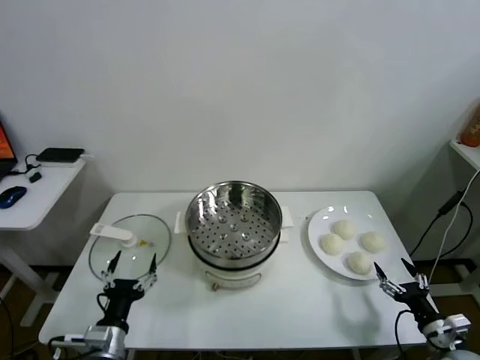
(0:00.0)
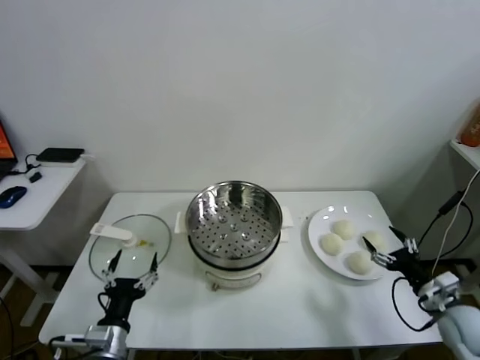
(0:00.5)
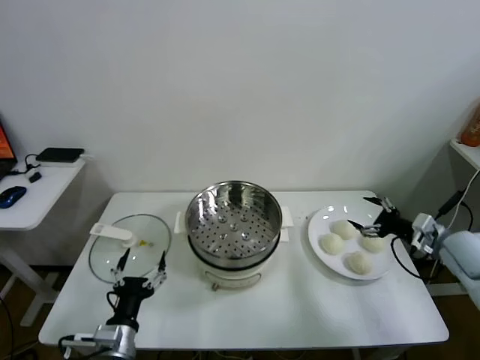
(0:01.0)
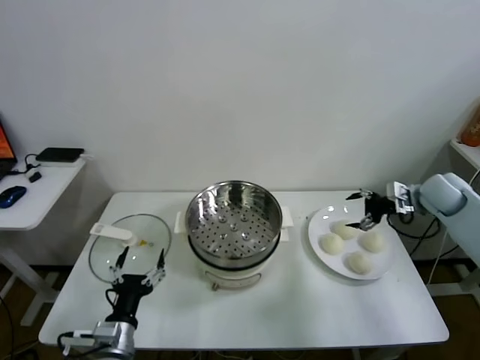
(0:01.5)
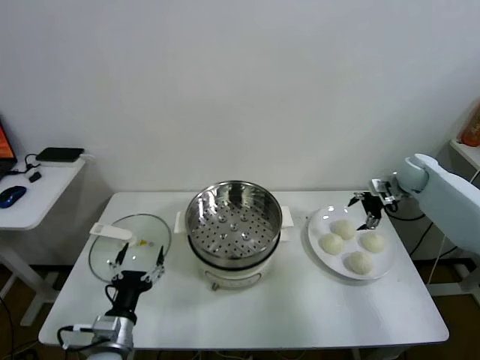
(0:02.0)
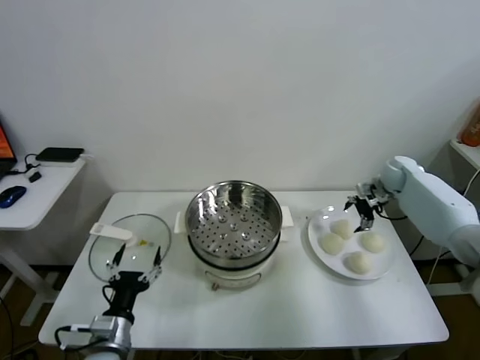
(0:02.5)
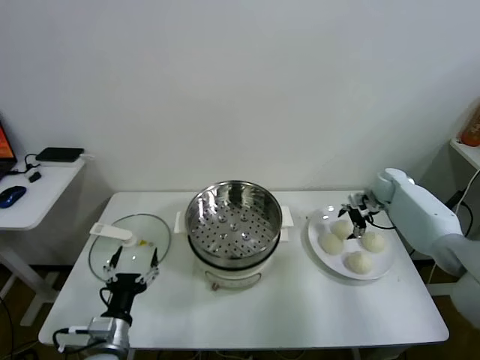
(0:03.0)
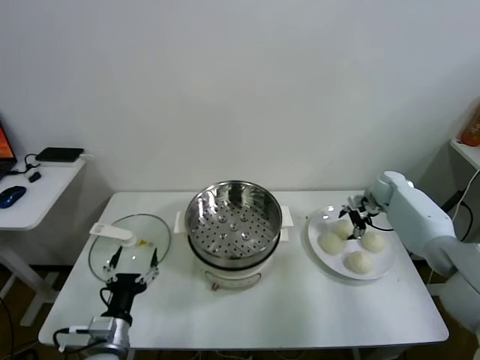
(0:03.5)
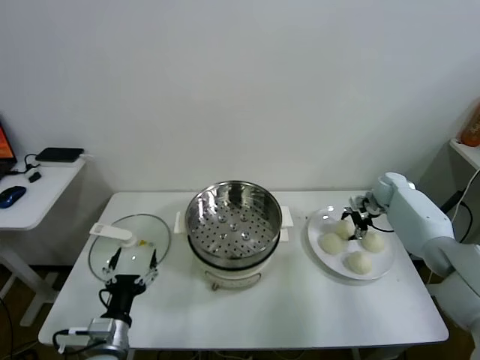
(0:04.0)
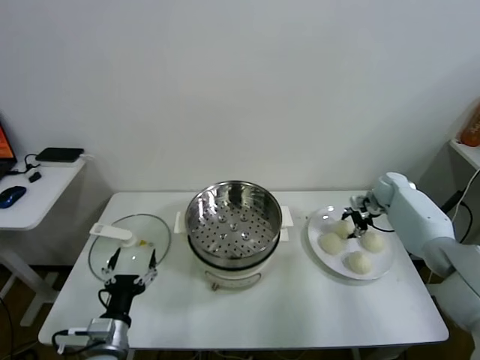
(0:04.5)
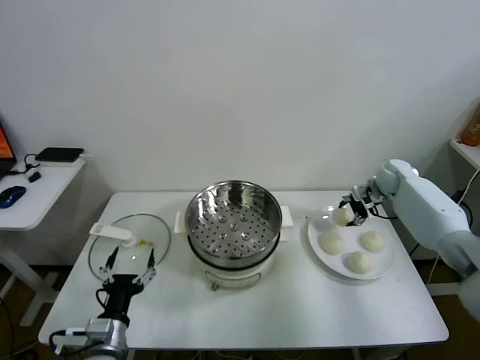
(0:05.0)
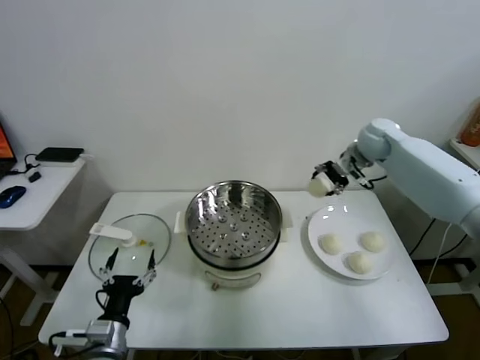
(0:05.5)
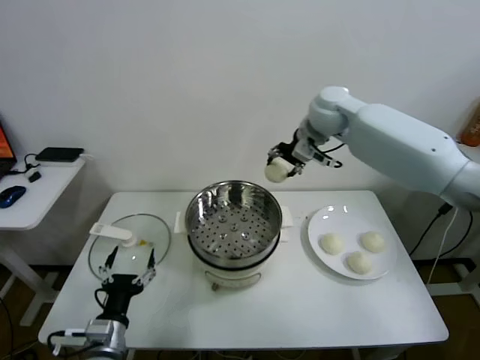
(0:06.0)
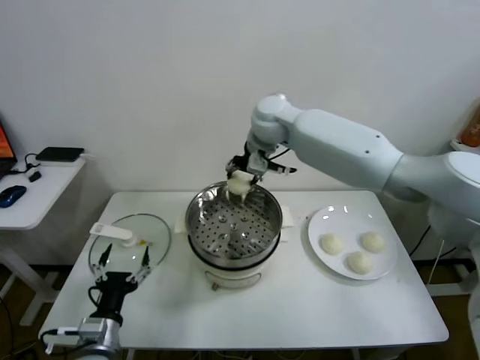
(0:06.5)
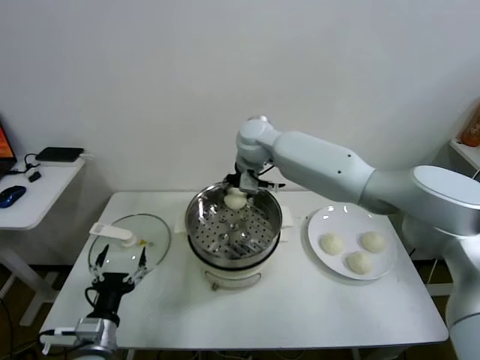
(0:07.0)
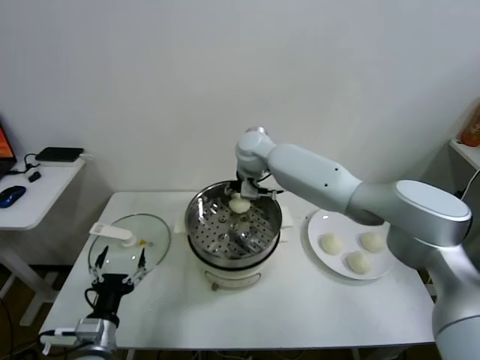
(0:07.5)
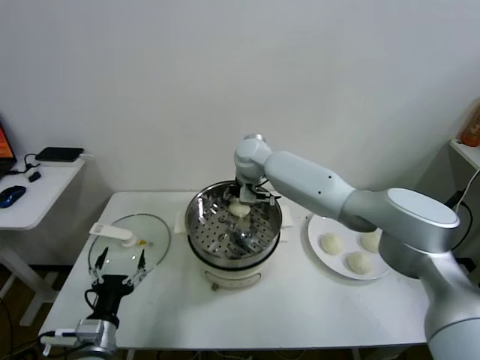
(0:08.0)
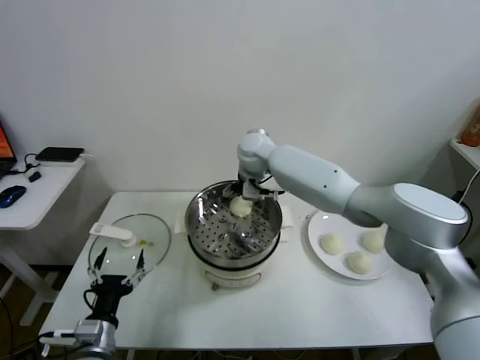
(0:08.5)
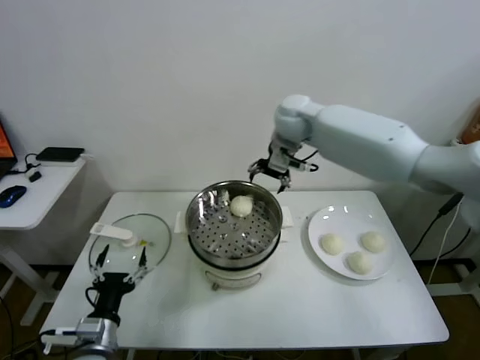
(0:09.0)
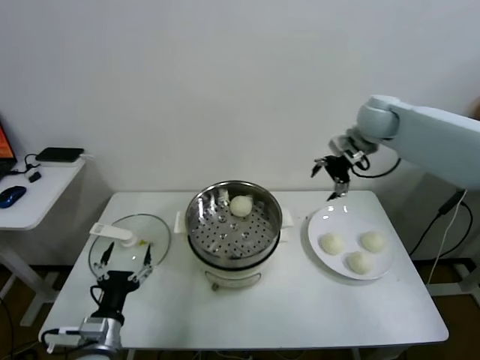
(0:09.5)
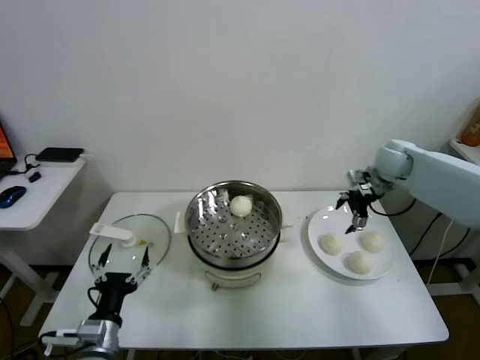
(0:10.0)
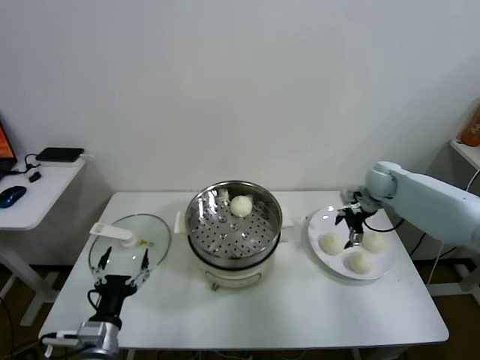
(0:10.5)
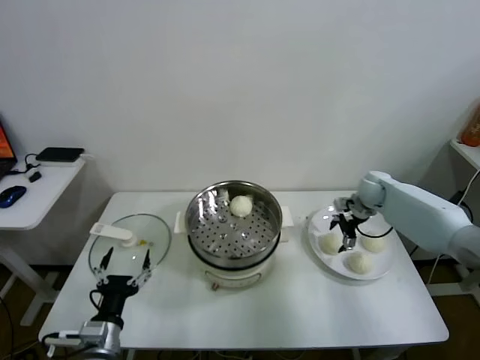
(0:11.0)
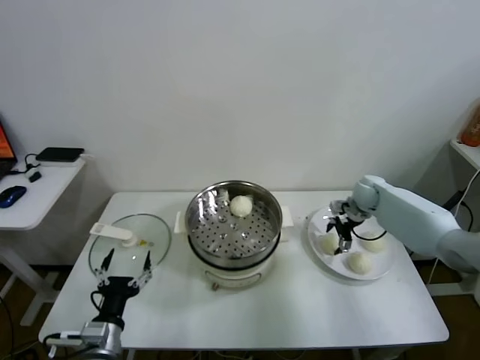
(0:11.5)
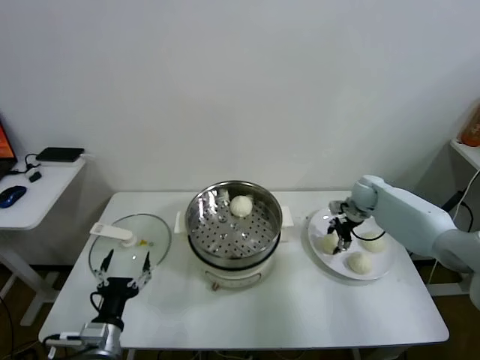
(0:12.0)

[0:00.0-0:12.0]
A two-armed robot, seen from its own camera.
Task of the whole recording: take steamed baozi put them in steamer.
Step, 0:00.0 to 0:04.5: Grasp the baozi in the plate with right gripper.
Step, 0:05.0 to 0:08.0: Place the baozi on the steamer with right gripper.
0:02.0 to 0:04.0: The right gripper is displaced downward by some 10 cm, and closes up.
0:04.0 to 0:06.0: The right gripper heads to the left and upward, covering approximately 40 cm, and closes its fingers.
0:06.0 to 0:08.0: The right gripper goes some 20 cm downward and to the left, and opens.
0:08.0 to 0:10.0: The right gripper shifts some 35 cm to the right.
0:10.0 to 0:12.0: The right gripper shifts some 10 cm downward, and closes up.

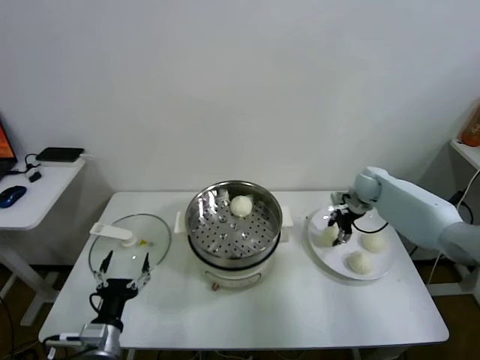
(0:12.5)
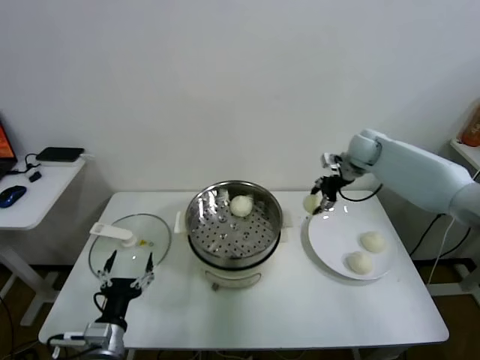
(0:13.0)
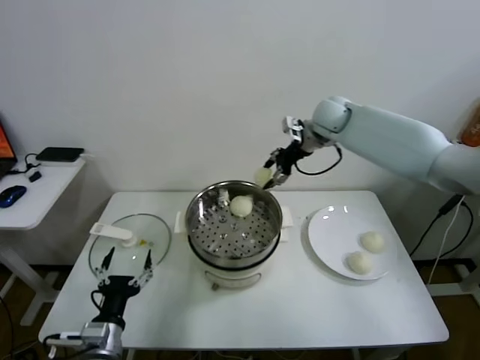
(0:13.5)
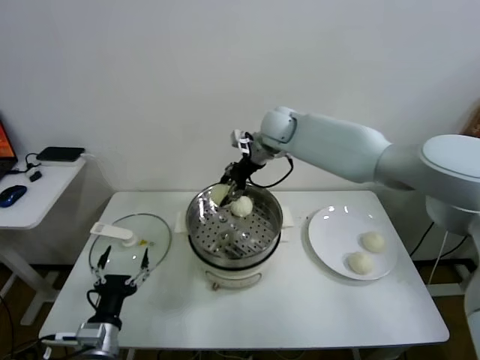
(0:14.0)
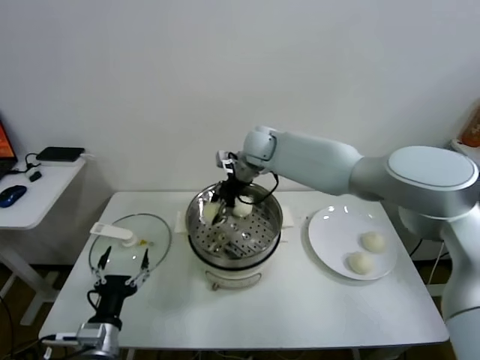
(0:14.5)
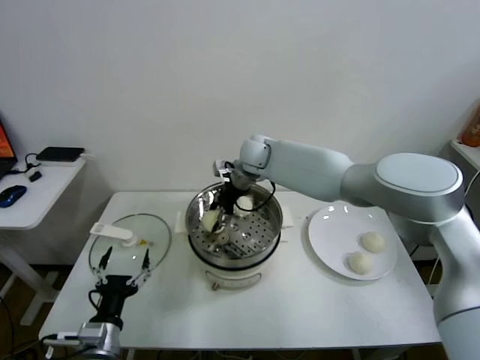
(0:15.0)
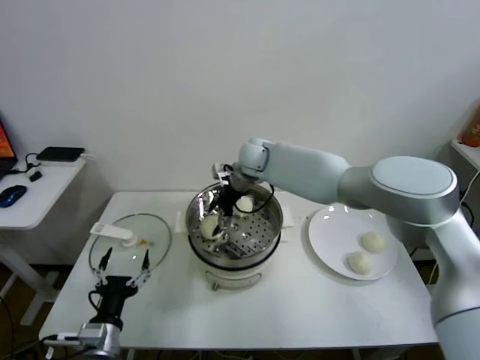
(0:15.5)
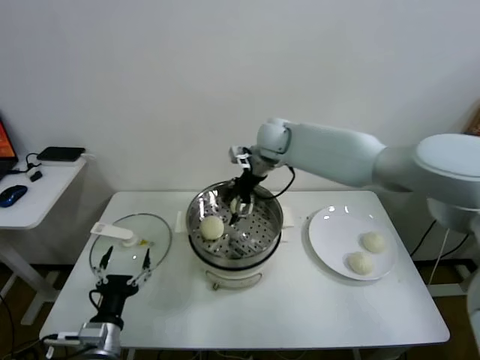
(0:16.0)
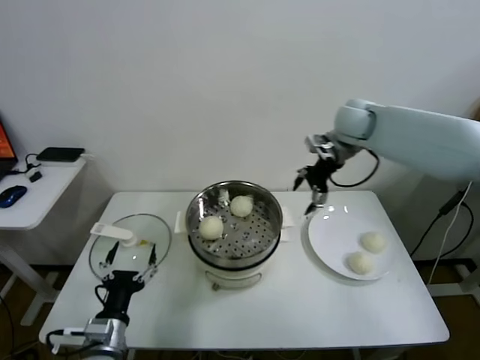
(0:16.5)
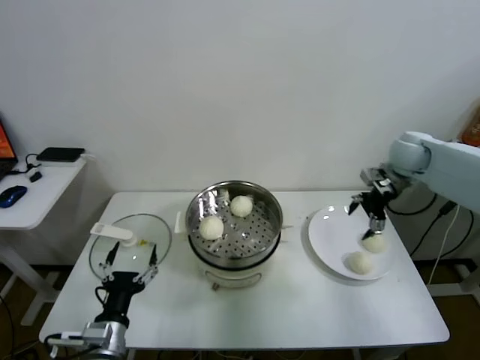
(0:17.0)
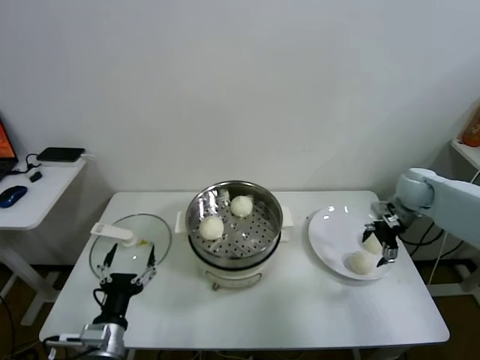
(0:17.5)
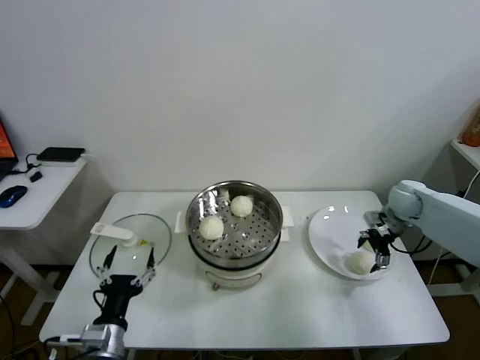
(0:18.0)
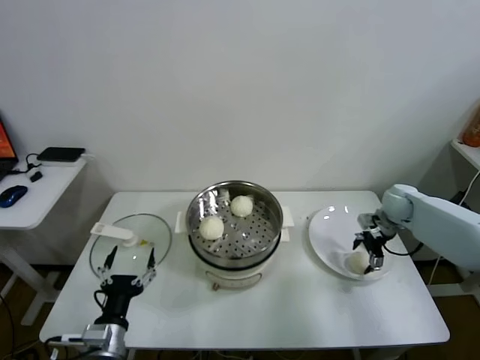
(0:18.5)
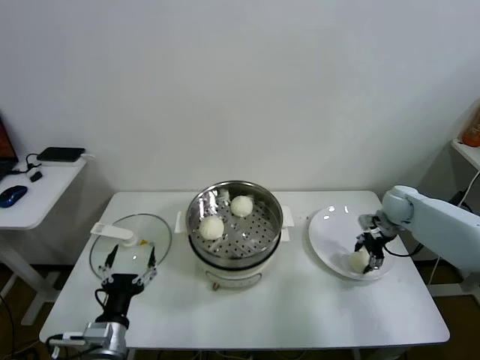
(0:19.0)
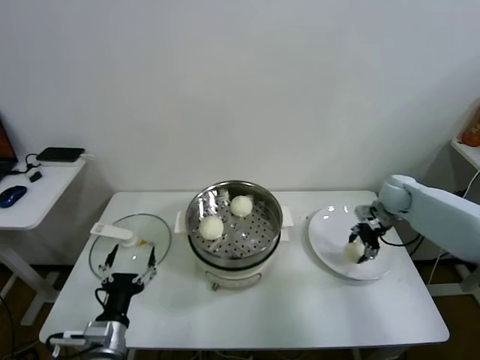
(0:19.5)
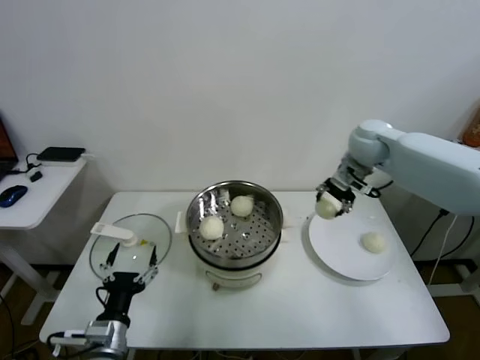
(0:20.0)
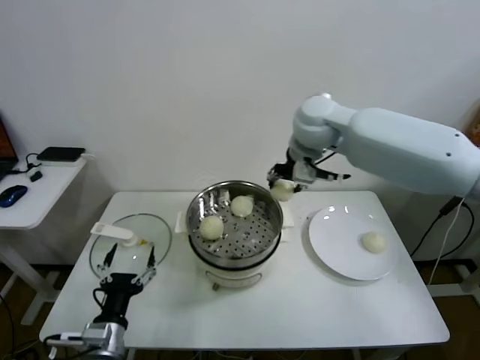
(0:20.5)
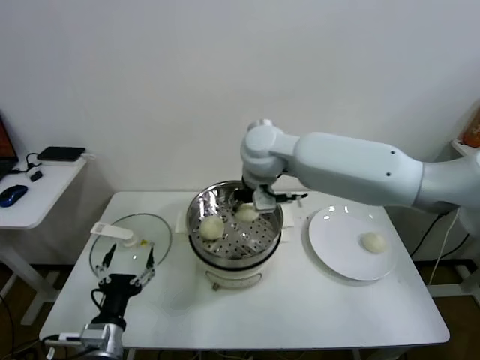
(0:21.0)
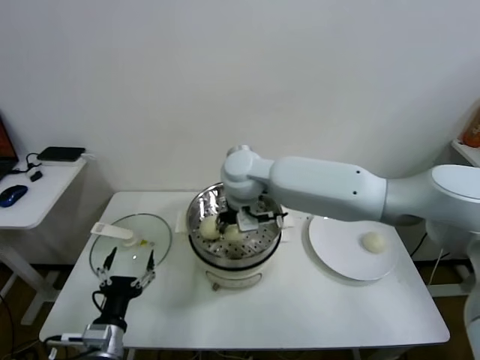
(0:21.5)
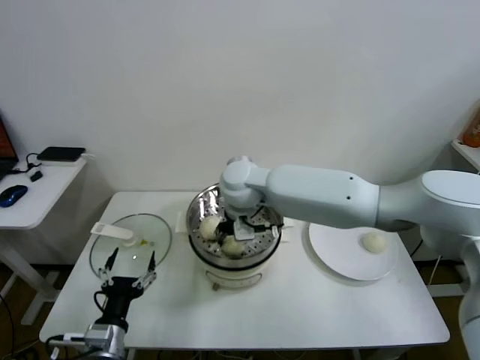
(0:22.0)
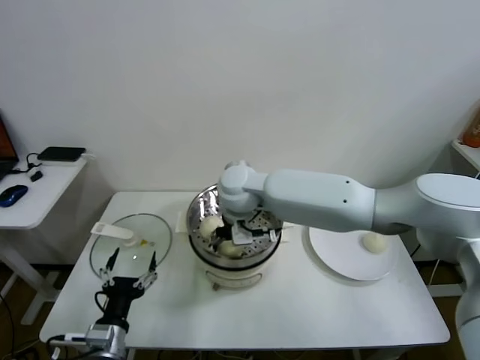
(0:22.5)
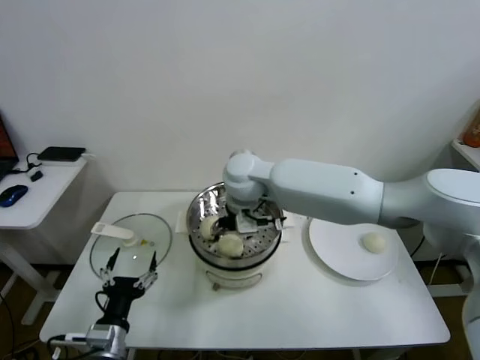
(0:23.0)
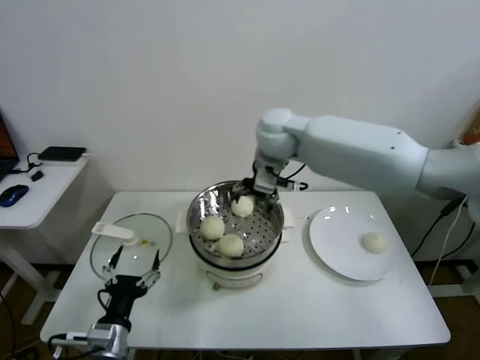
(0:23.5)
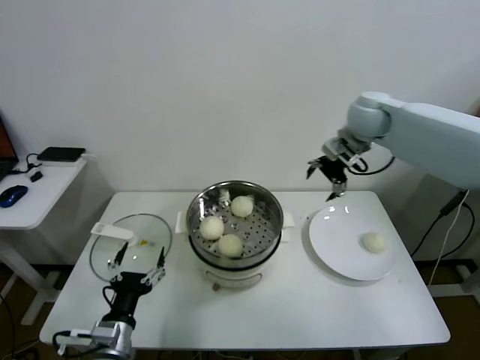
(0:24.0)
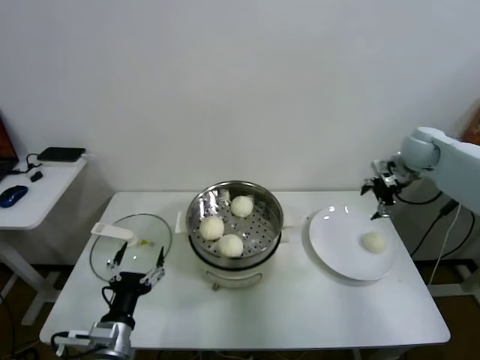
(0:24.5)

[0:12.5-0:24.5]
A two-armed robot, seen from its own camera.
Task of the whole recording: take steamed baozi put them in steamer.
Step, 0:12.5 to 0:15.5: Place the baozi on the steamer with right gripper.
Step, 0:16.0 to 0:19.0: Grasp the baozi in the plate with right gripper.
Step, 0:19.5 to 0:22.5: Place the baozi on the steamer with right gripper.
0:12.5 to 0:14.5: The right gripper goes about 30 cm to the left.
0:14.5 to 0:16.5: The right gripper travels to the right by about 20 cm, and opens its fingers.
0:16.5 to 0:18.5: The right gripper shifts some 25 cm downward and to the right.
0:18.5 to 0:20.5: The right gripper travels to the left and upward by some 40 cm, and closes its fingers.
0:20.5 to 0:22.5: The right gripper travels to the left and downward by roughly 20 cm, and opens.
0:22.5 to 0:24.5: The right gripper goes about 40 cm to the right.

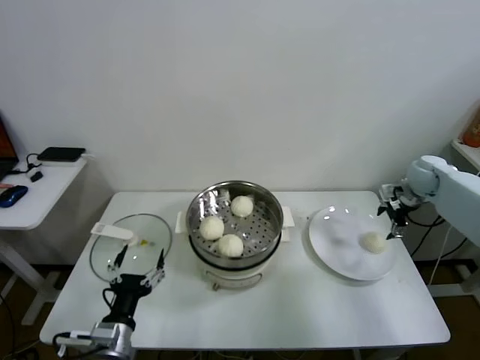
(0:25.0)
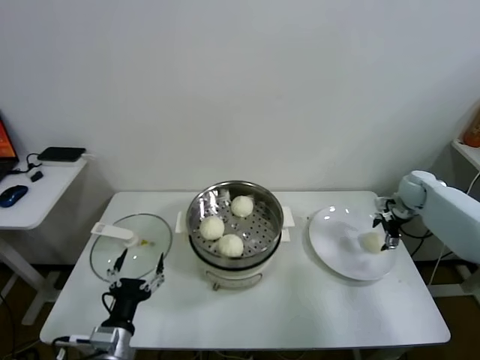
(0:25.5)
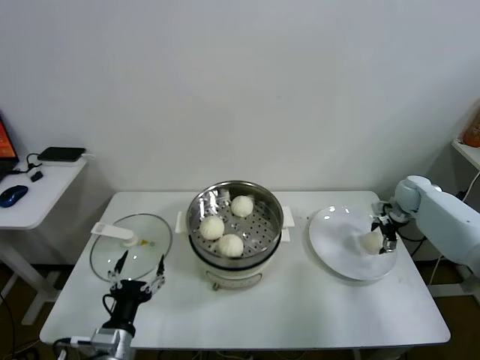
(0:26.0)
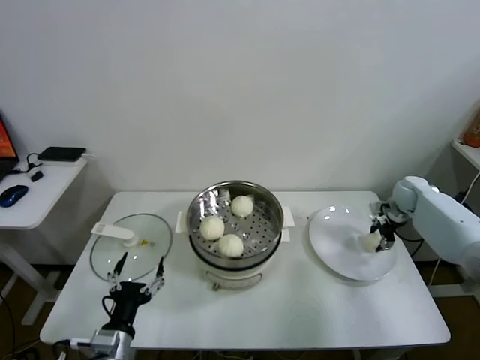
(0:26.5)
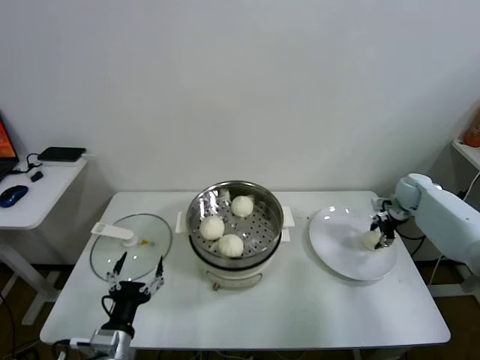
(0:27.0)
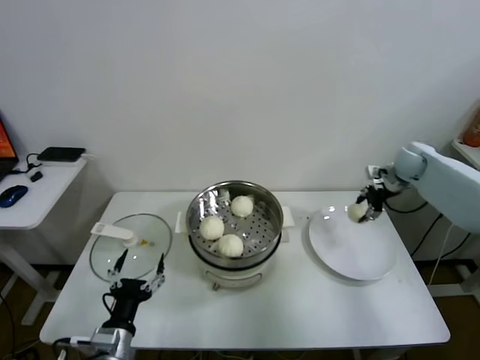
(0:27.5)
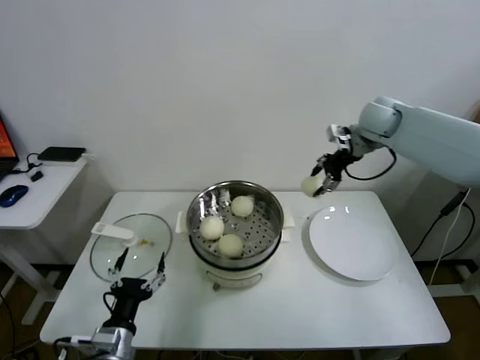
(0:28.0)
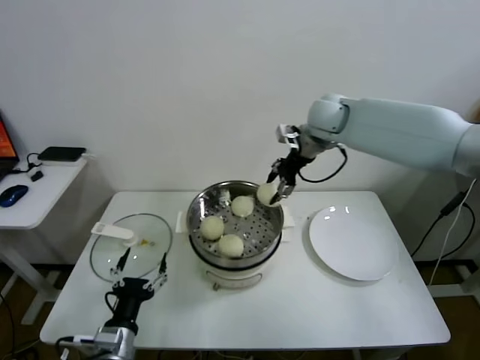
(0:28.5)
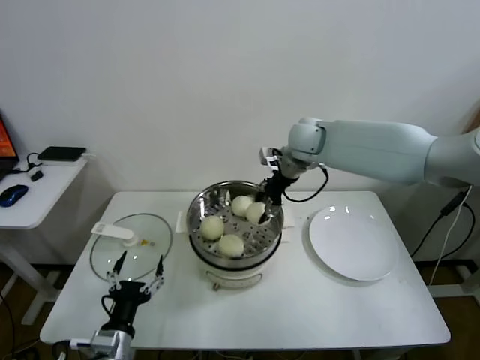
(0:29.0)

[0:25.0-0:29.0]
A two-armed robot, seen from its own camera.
Task of the whole recording: take steamed baozi put them in steamer.
0:25.0 to 0:27.0: The right gripper shifts about 10 cm downward, and closes up.
0:27.0 to 0:29.0: The right gripper goes approximately 35 cm to the left and upward.
